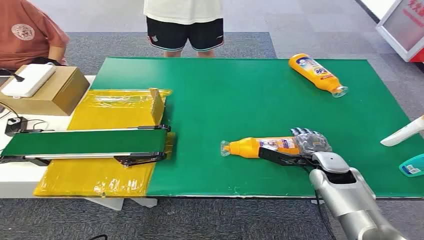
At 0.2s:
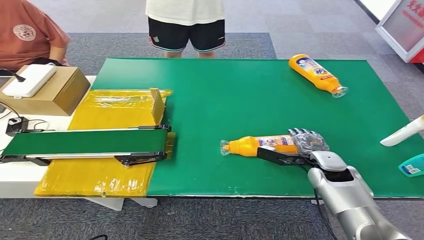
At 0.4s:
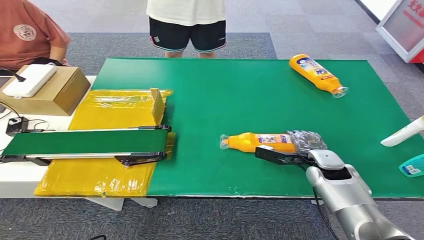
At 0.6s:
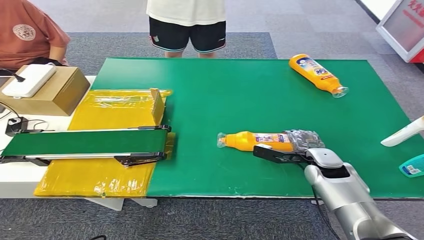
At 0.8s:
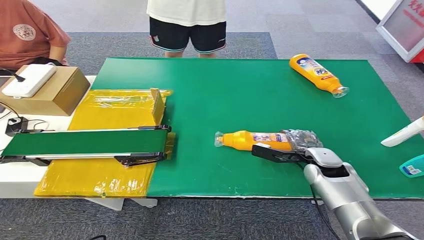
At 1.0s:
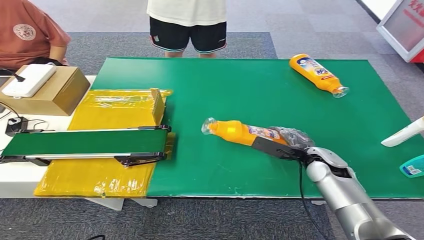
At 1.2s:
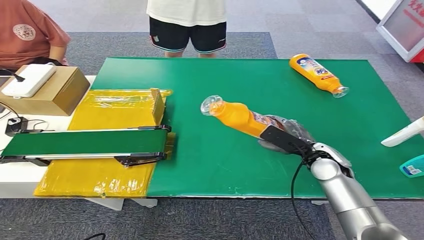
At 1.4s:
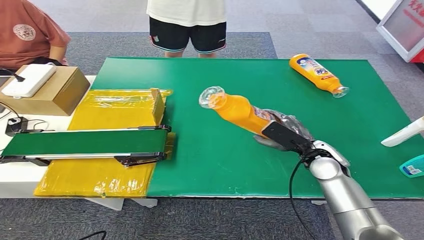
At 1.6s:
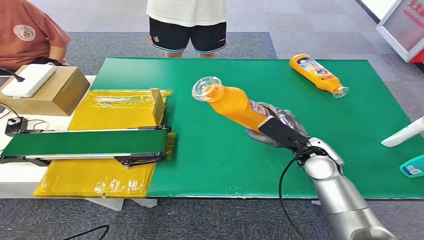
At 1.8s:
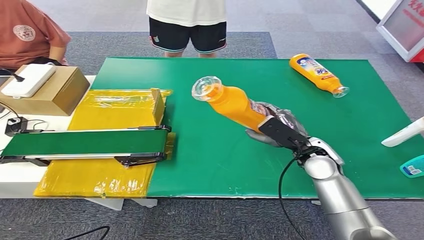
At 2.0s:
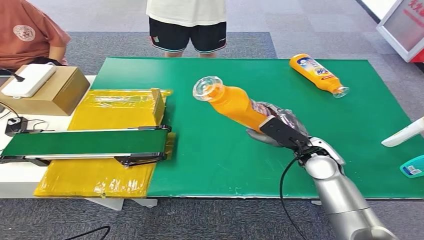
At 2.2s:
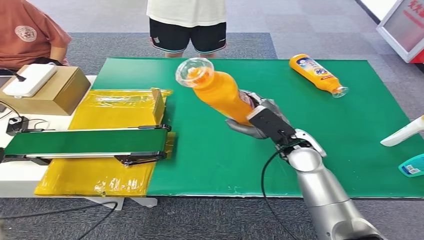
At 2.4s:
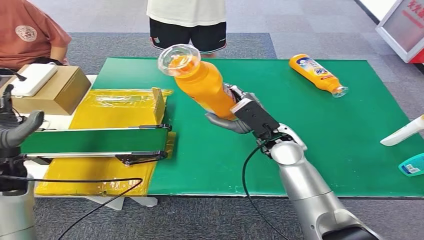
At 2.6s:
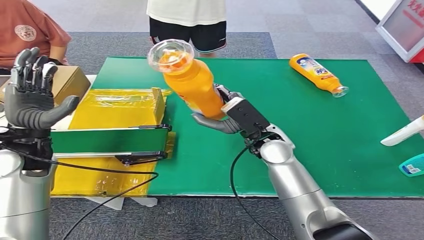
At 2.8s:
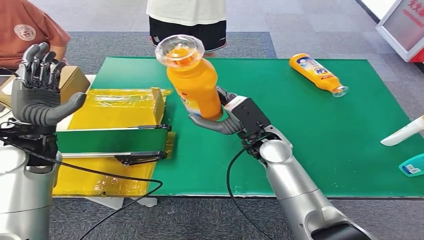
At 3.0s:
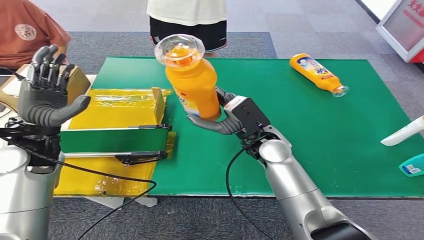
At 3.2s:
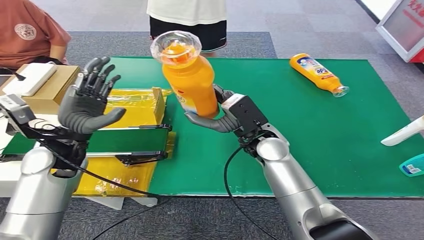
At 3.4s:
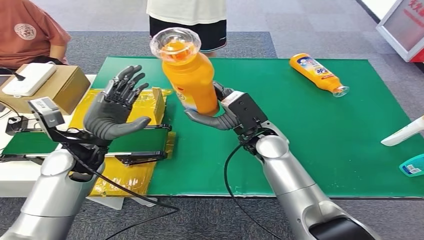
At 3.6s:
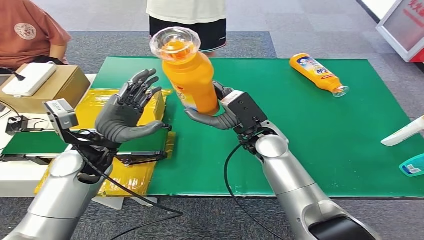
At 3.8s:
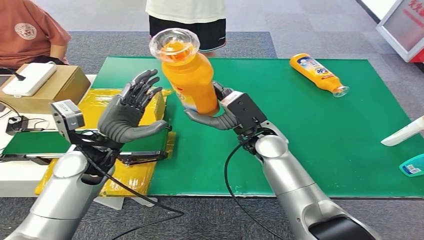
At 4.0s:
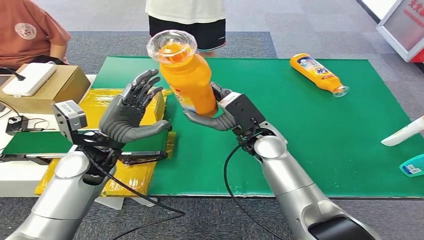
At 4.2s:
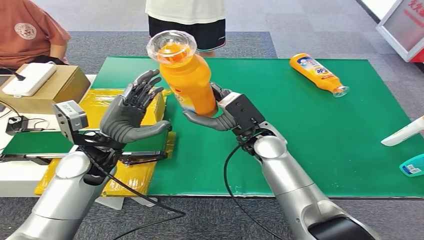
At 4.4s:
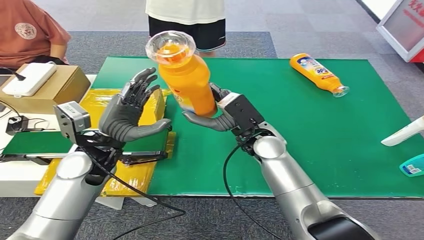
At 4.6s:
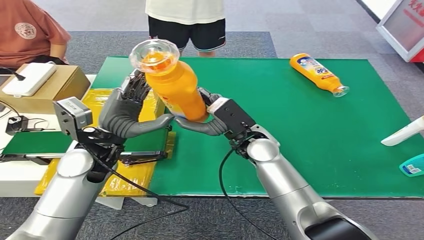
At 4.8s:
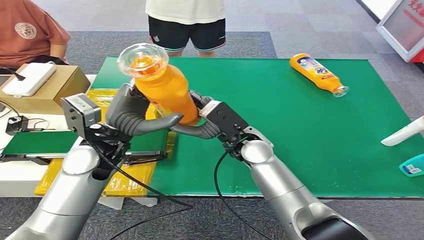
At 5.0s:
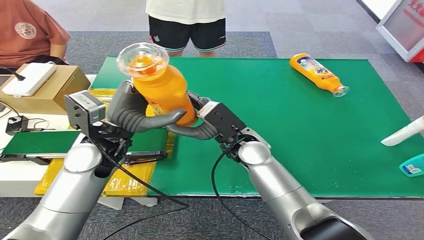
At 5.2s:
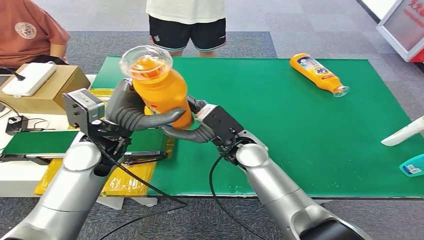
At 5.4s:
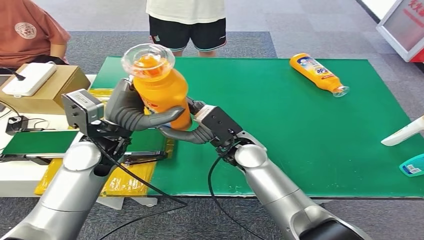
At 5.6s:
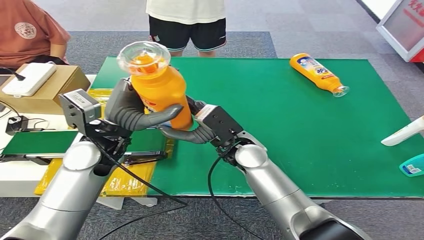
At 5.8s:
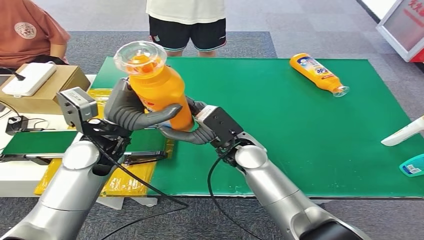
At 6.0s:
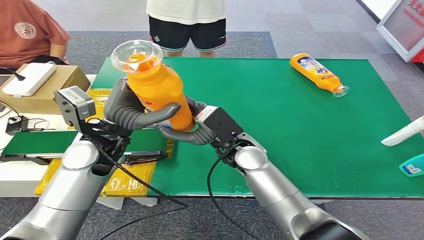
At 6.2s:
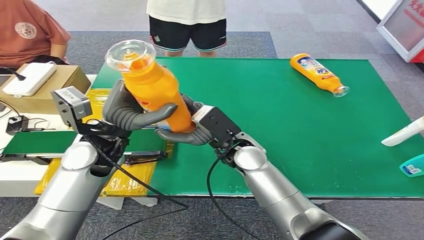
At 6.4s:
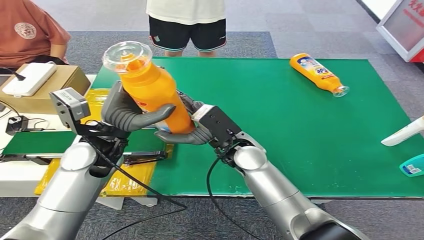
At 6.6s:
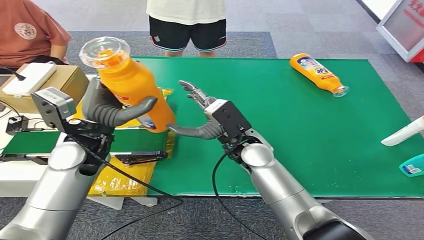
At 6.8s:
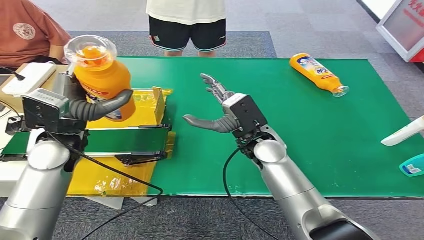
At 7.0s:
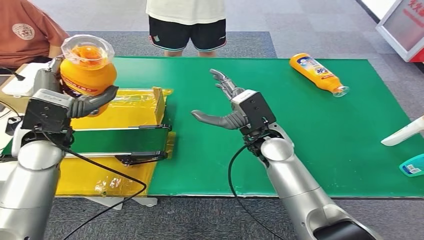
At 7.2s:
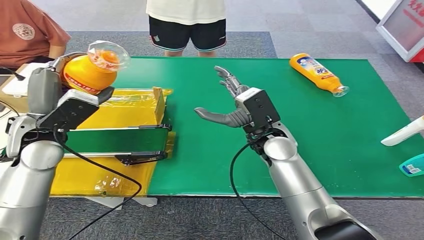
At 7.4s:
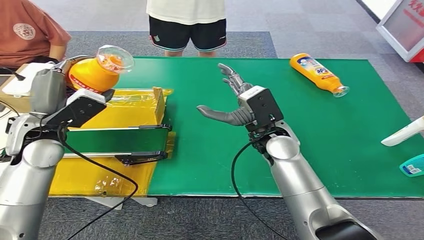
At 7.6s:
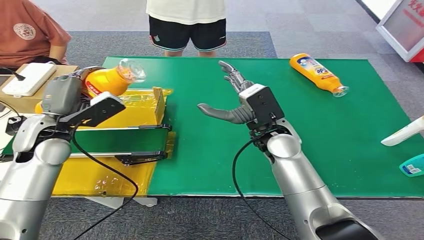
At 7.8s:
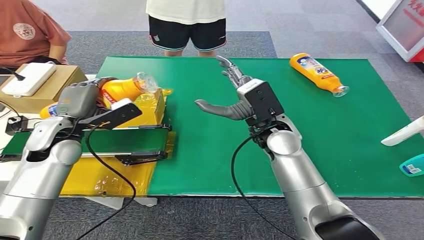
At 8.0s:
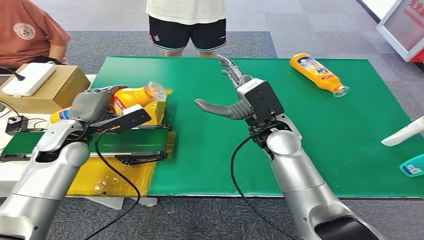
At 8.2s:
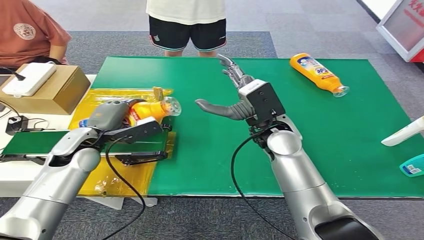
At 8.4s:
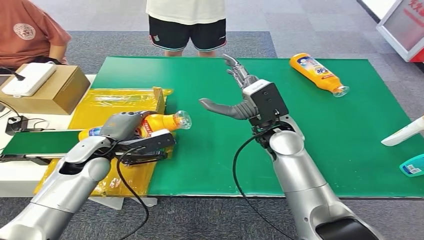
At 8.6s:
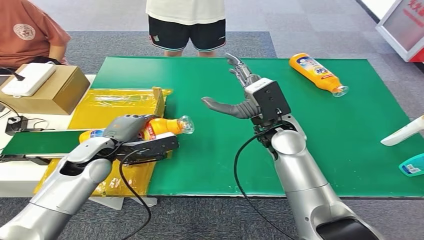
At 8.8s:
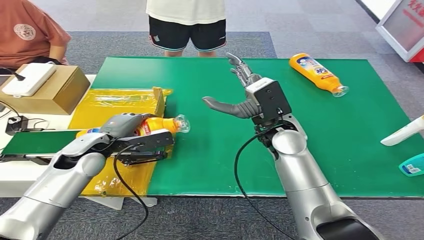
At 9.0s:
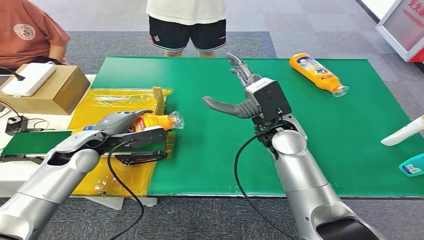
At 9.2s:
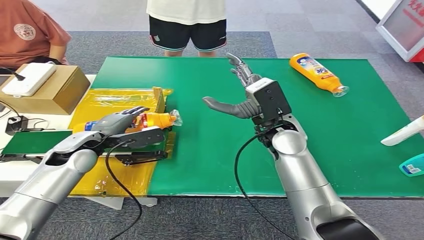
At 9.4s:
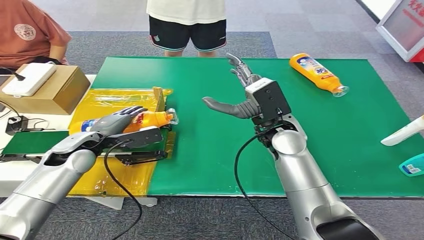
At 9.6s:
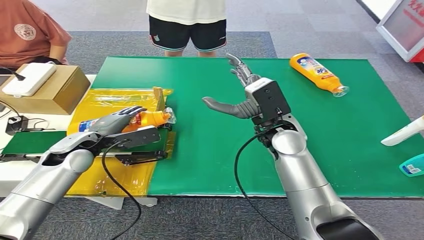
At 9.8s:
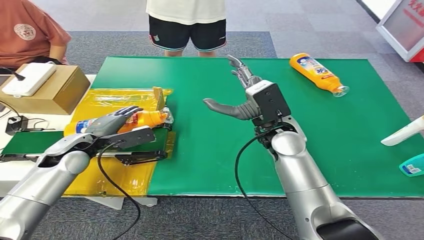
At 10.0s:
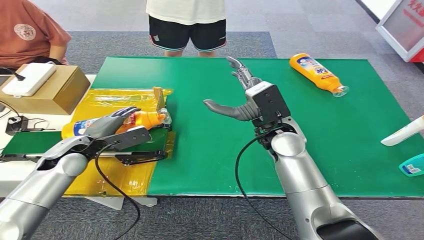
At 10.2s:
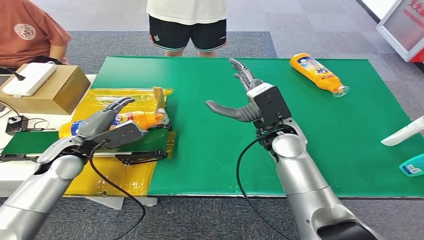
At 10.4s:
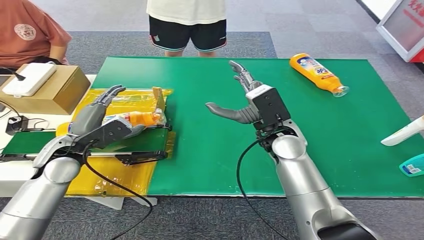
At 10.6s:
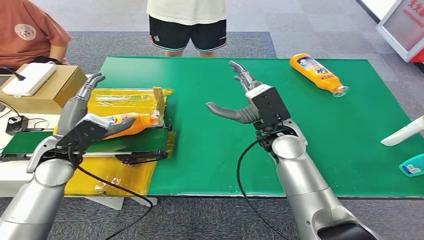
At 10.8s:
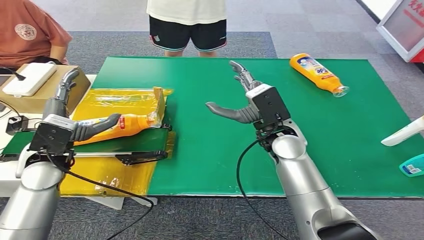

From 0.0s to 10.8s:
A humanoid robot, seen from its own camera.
Step, from 0.0s to 1.6s: Pick up the bottle from the table.
Step, from 1.8s to 10.8s: Turn the bottle to the front side.
From 4.6s to 6.2s: There are only small adjustments of the hands.
From 7.8s to 9.2s: The left hand shifts roughly 5 cm downward.
From 9.2s to 10.8s: The left hand goes about 5 cm backward.

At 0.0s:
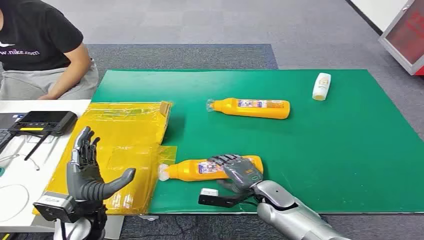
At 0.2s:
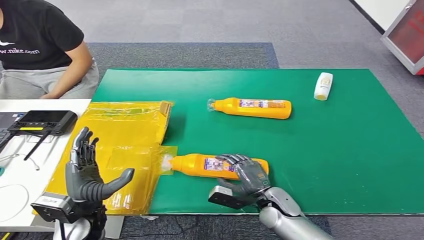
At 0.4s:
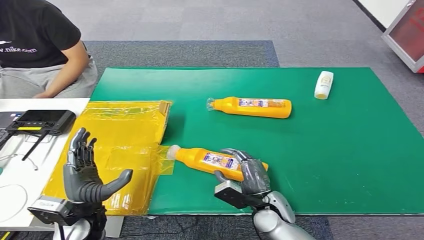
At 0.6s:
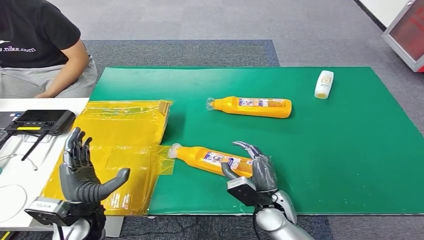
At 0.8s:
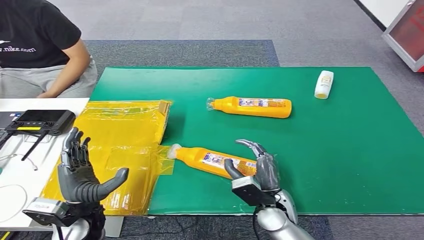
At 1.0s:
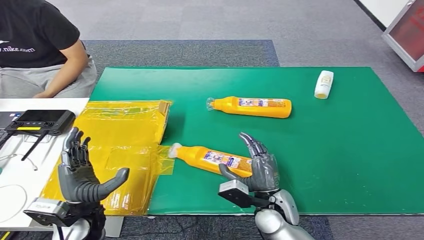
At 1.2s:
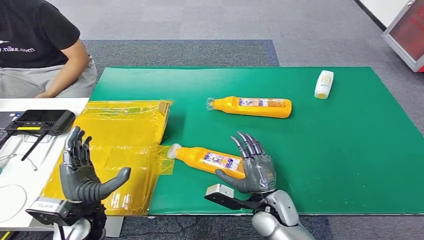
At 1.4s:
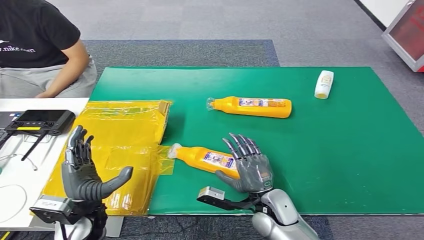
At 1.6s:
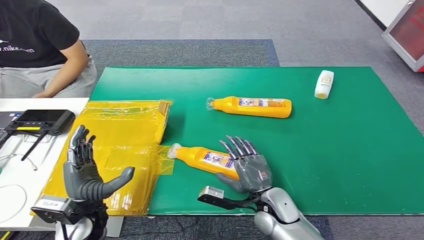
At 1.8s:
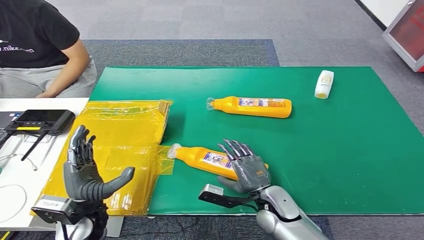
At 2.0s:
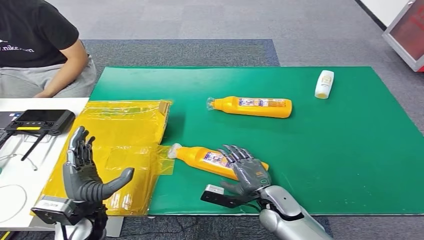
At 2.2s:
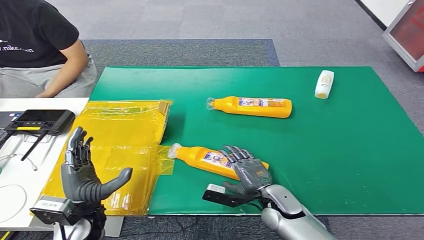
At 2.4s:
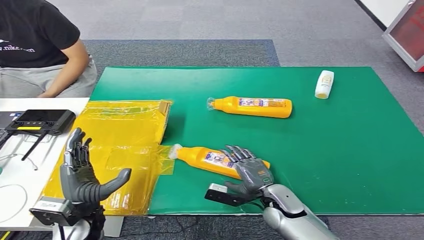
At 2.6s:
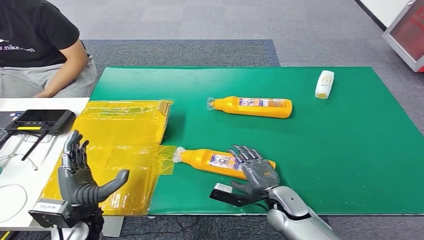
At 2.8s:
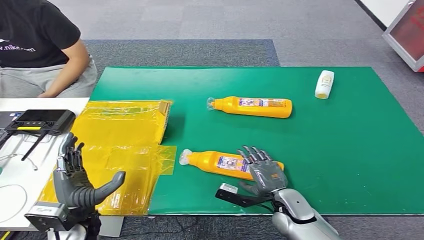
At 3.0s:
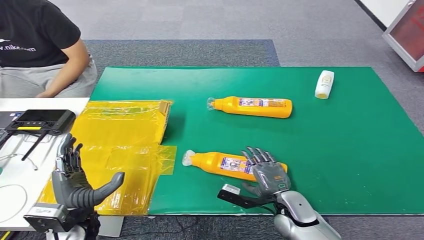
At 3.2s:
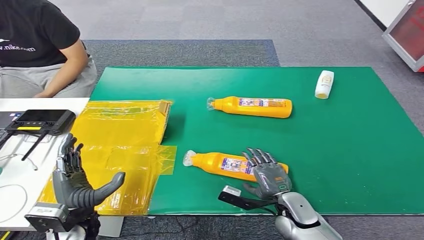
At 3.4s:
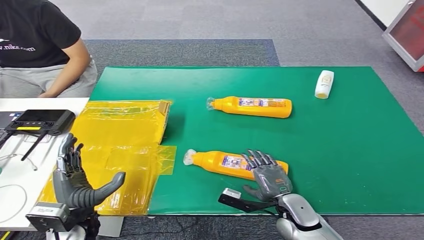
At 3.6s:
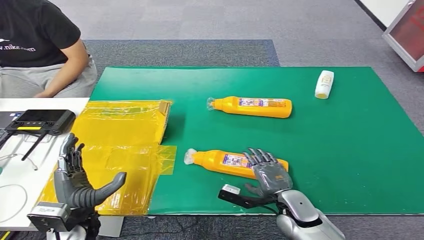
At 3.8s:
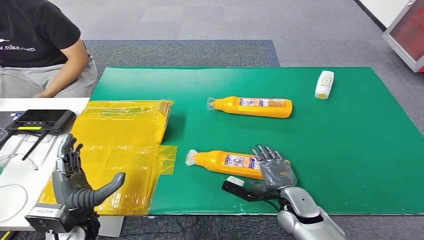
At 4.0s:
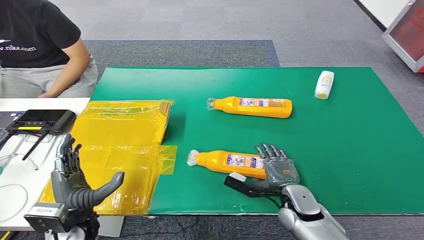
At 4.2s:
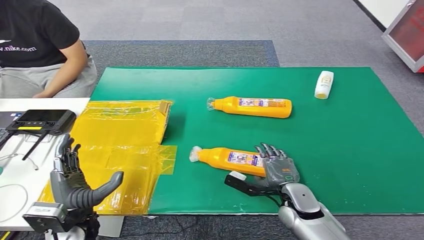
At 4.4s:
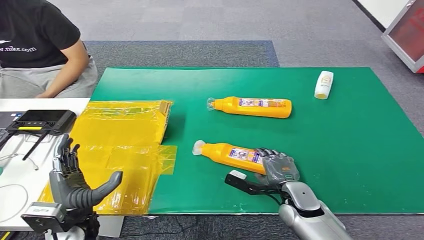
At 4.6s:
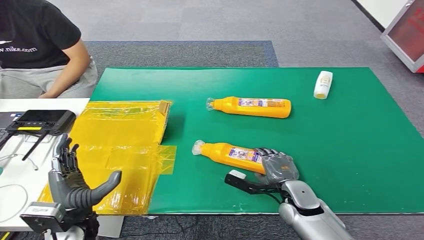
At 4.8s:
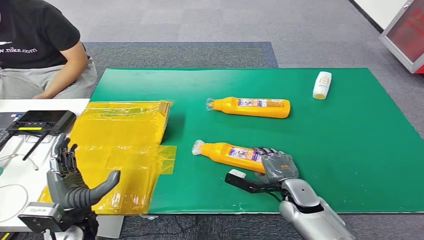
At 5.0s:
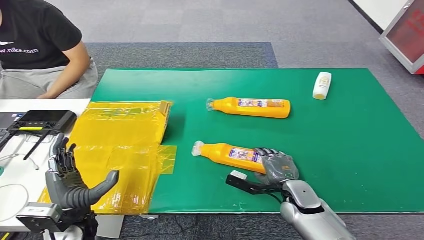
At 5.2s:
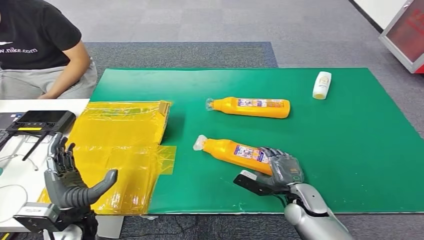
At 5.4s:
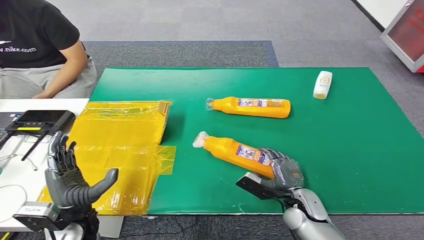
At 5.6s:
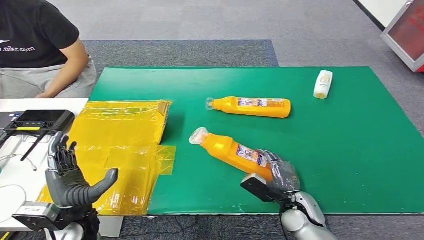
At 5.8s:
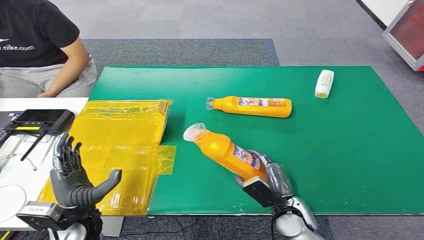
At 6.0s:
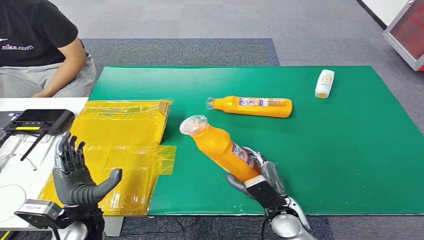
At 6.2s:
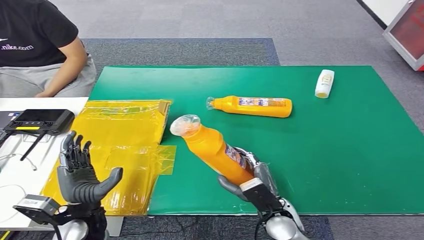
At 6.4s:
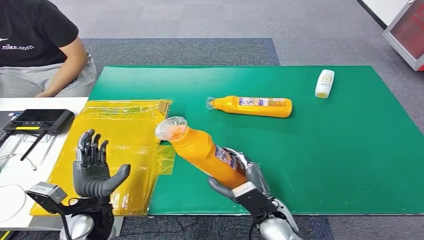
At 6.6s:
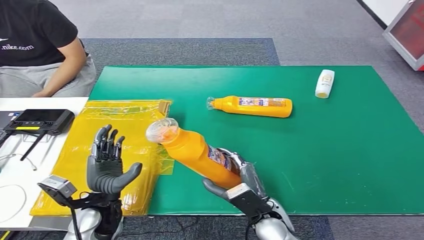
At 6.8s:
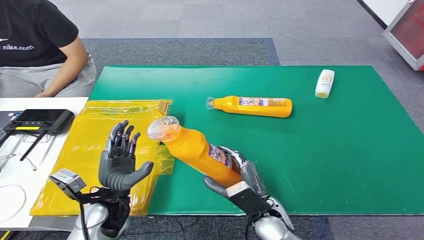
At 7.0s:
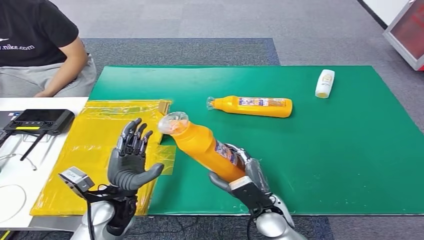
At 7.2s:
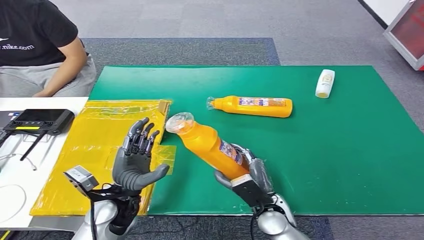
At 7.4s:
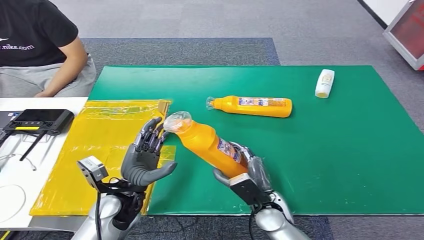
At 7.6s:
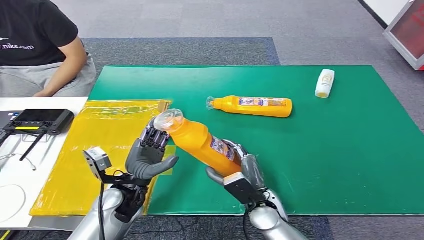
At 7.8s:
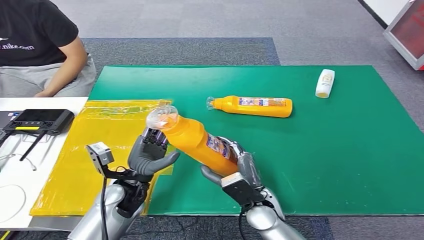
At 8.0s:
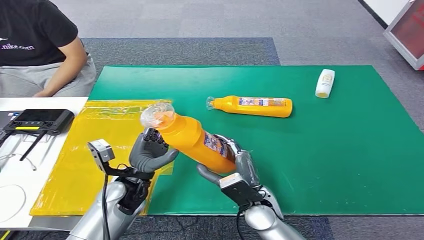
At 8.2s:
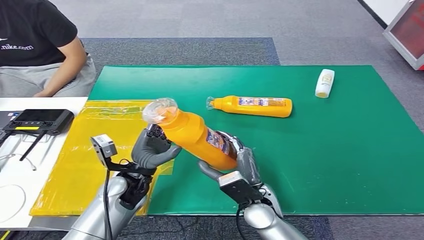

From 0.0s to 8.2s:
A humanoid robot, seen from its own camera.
Step, from 0.0s to 7.6s: Pick up the bottle from the table.
From 1.6s to 3.2s: The right hand shifts roughly 5 cm to the right.
From 3.2s to 5.0s: The hands move only a little.
From 6.6s to 8.2s: The left hand is displaced forward by roughly 5 cm.
